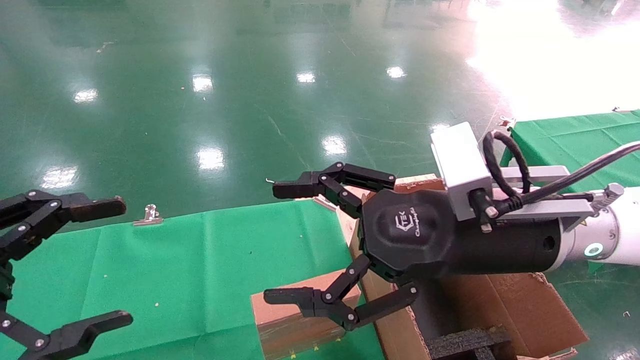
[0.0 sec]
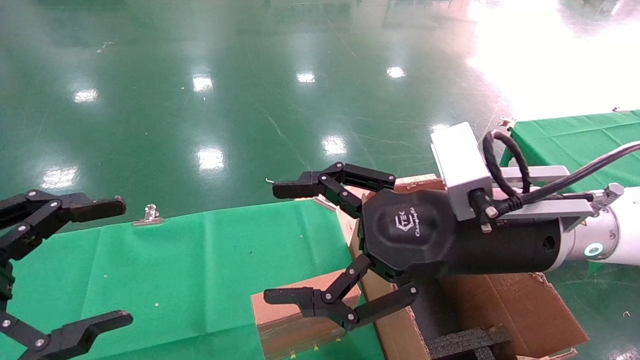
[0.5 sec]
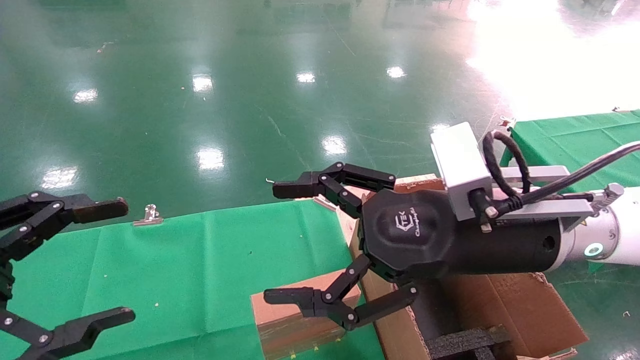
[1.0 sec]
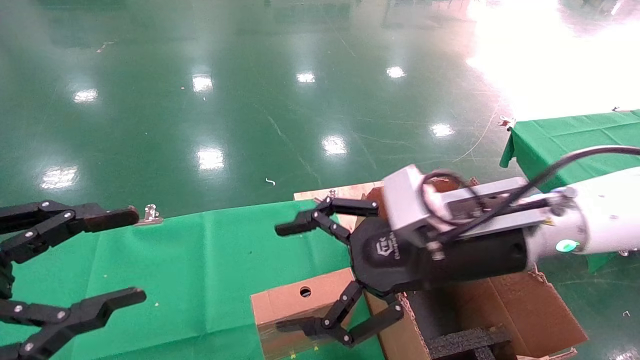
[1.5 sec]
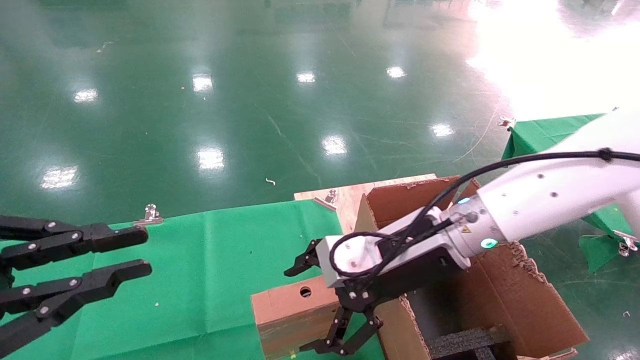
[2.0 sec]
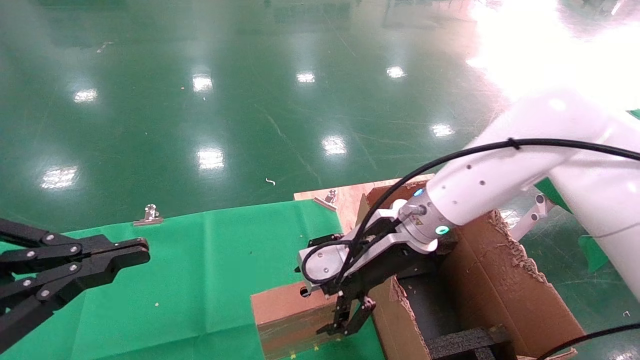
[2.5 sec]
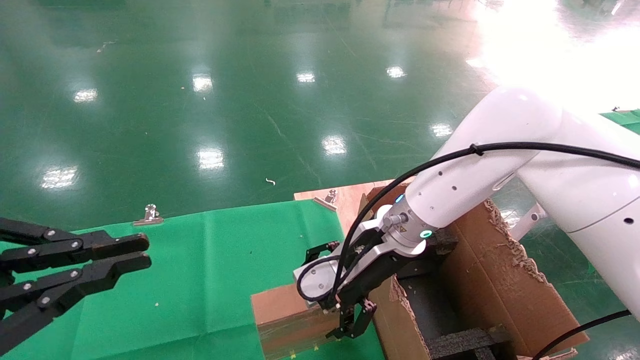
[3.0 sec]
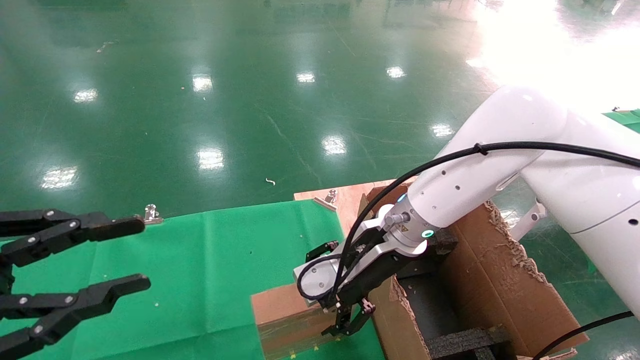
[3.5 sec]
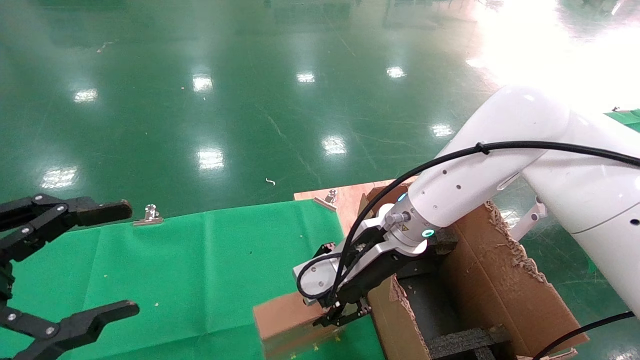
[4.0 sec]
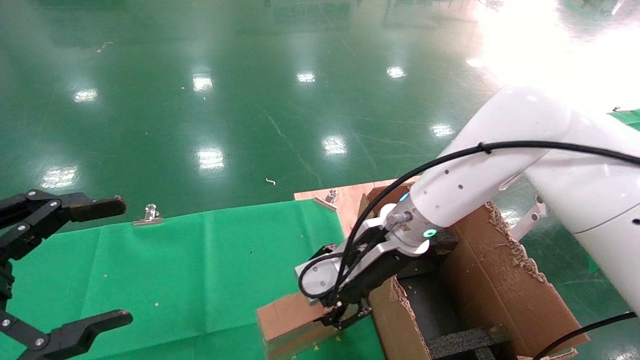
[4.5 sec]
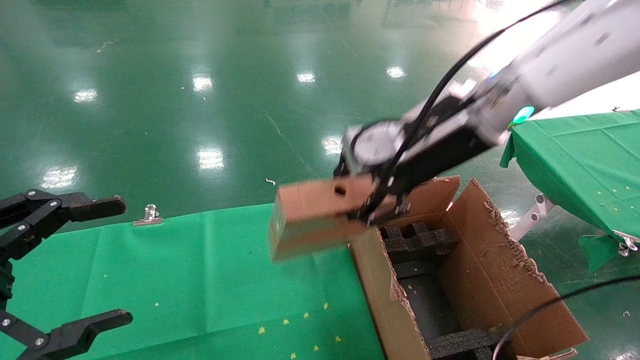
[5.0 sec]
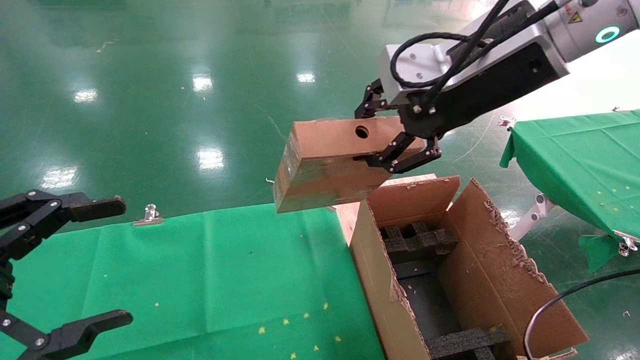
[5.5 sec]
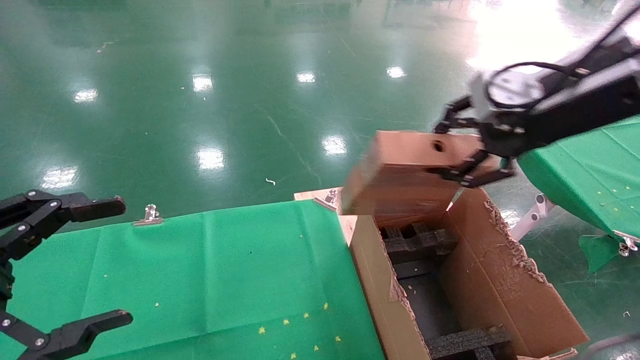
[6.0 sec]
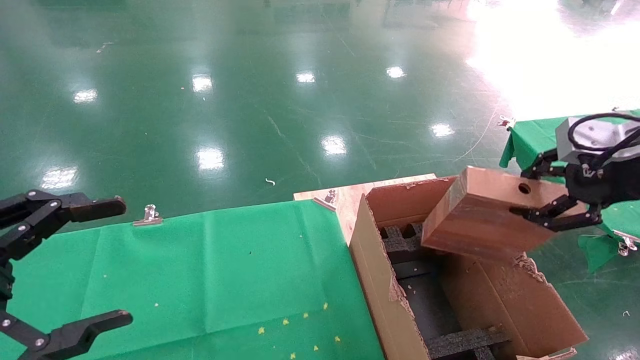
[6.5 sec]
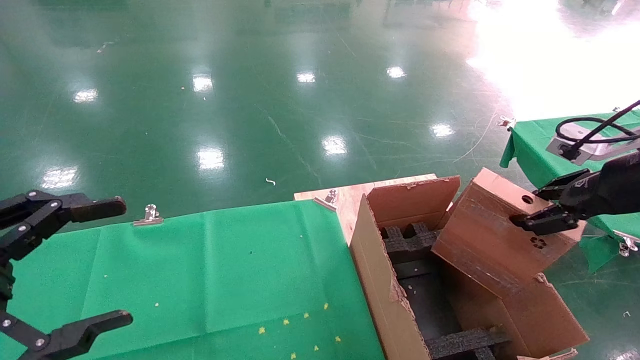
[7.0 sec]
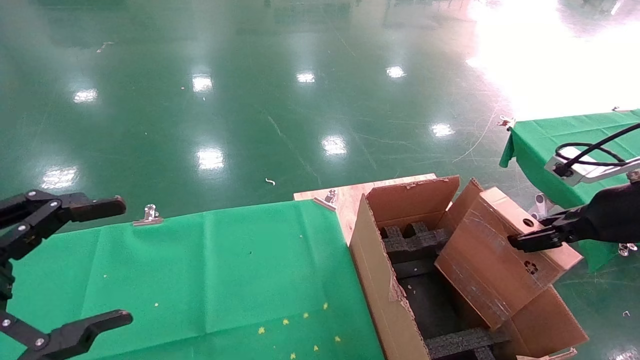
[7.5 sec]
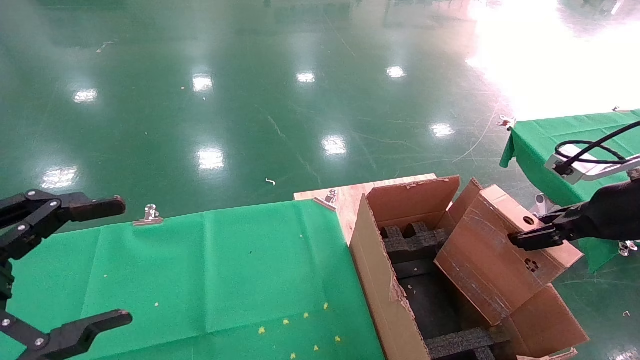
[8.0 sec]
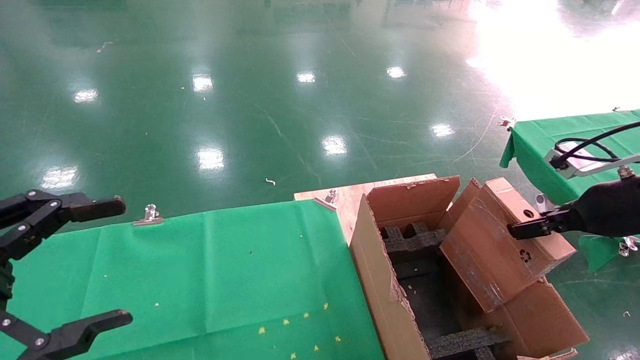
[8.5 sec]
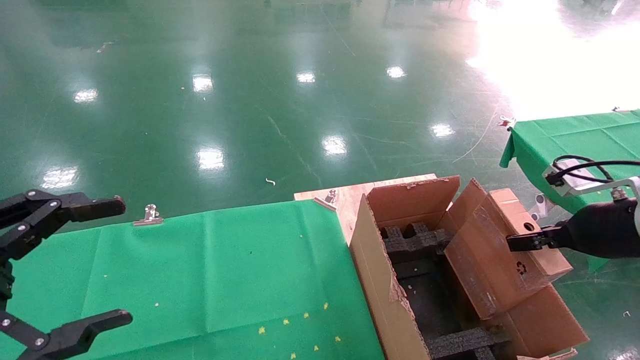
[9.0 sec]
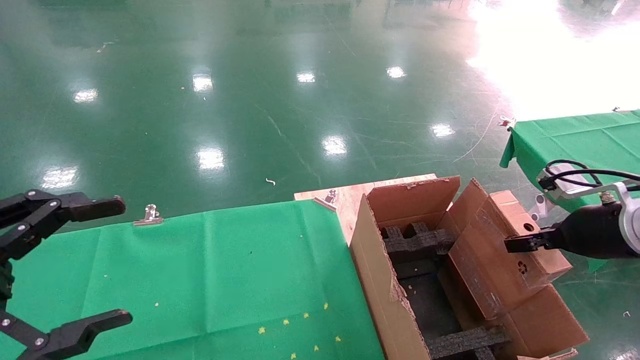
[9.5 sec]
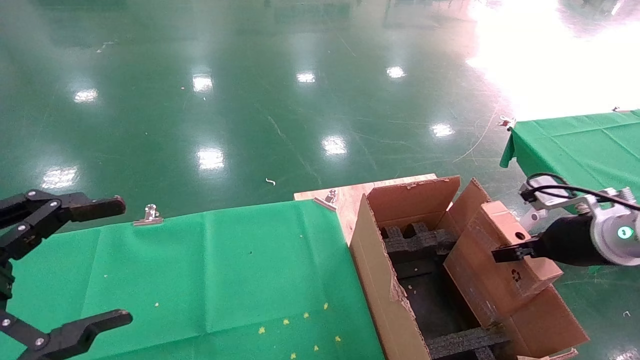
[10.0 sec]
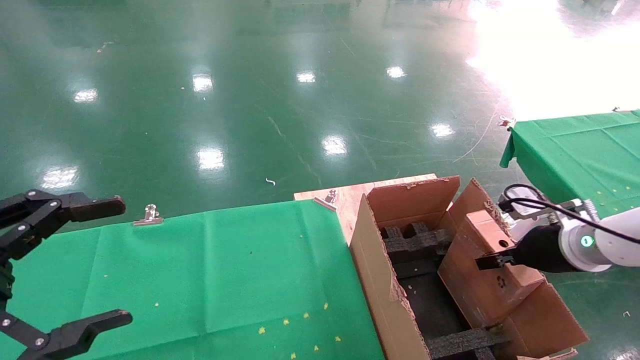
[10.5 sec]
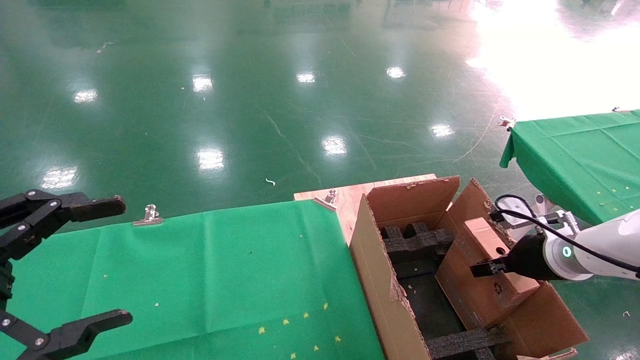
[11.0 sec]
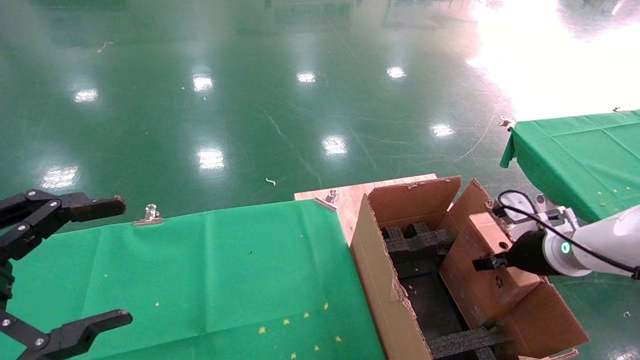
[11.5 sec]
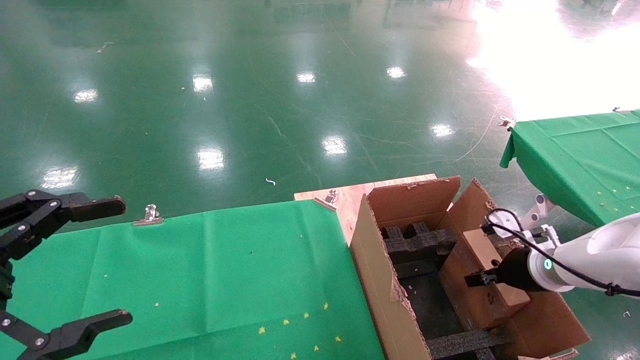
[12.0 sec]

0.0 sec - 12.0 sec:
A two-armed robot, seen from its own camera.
Task of the whole recording: using a robotic arm to pick up a cardboard box and palace it the carton.
Step, 1.5 sec - 4.5 sec: Pick up the mouse and the power cord paper box.
0.0 sec - 2.0 sec: The left gripper closes its fingers; the right gripper travels forward by some 5 cm.
2.0 sec - 4.0 sec: The left gripper opens. Meanwhile the right gripper moves about 5 cm, and closes its fingers.
4.0 sec - 6.0 sec: The right gripper heads to the right and upward, covering roughly 25 cm, and closes.
6.0 sec - 8.0 sec: The right gripper is displaced downward and to the right by approximately 15 cm.
8.0 sec - 10.0 sec: The right gripper moves downward, approximately 5 cm.
10.0 sec - 12.0 sec: The right gripper travels downward by approximately 10 cm.

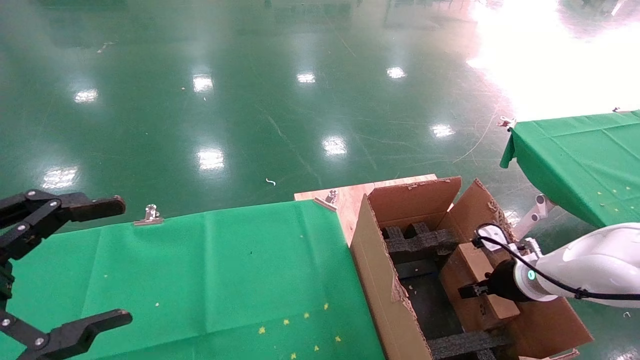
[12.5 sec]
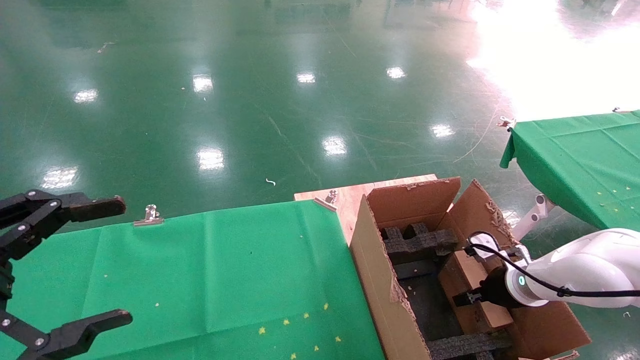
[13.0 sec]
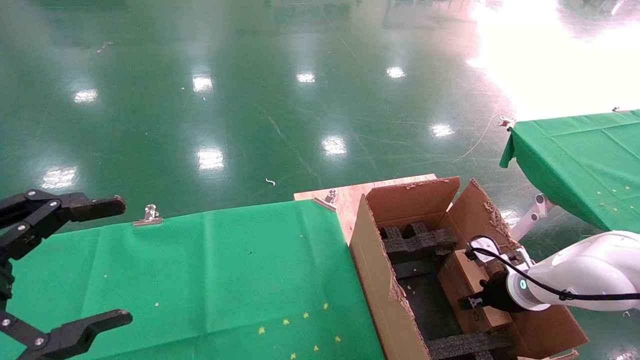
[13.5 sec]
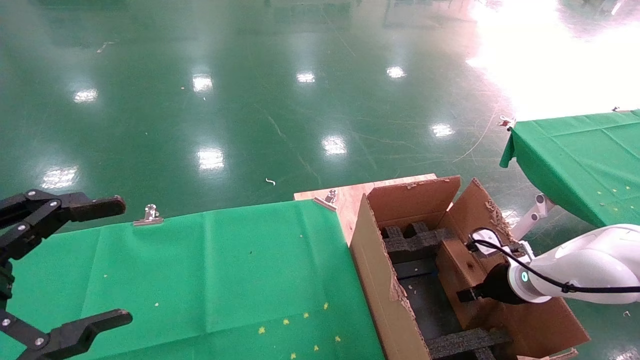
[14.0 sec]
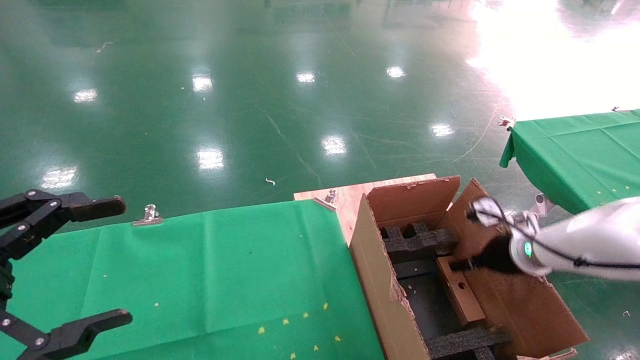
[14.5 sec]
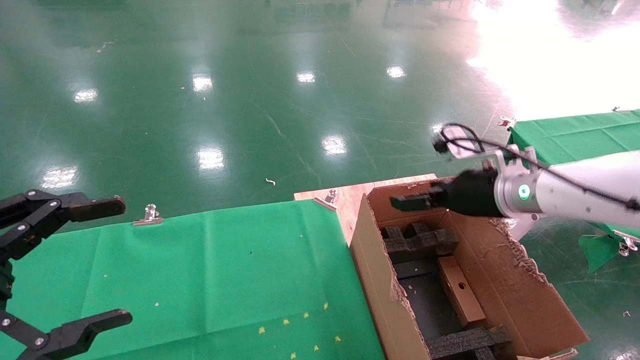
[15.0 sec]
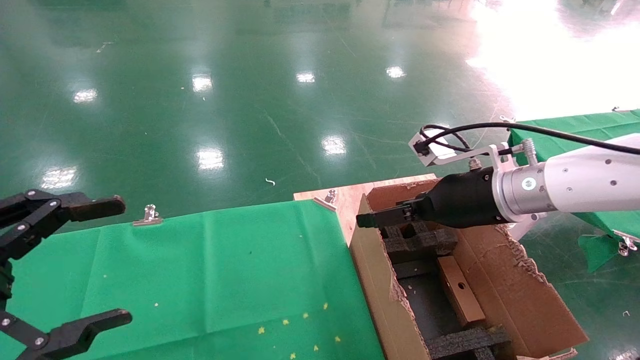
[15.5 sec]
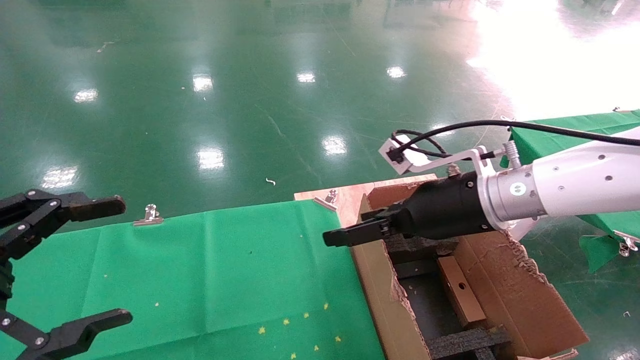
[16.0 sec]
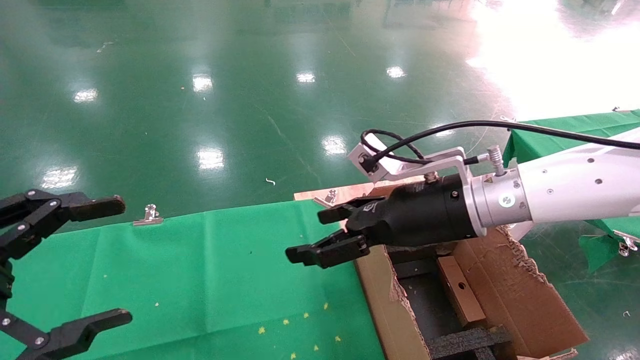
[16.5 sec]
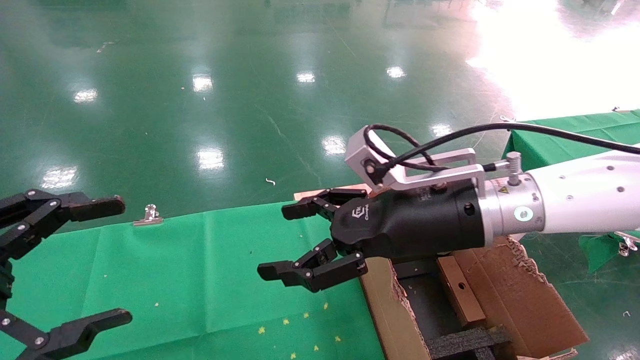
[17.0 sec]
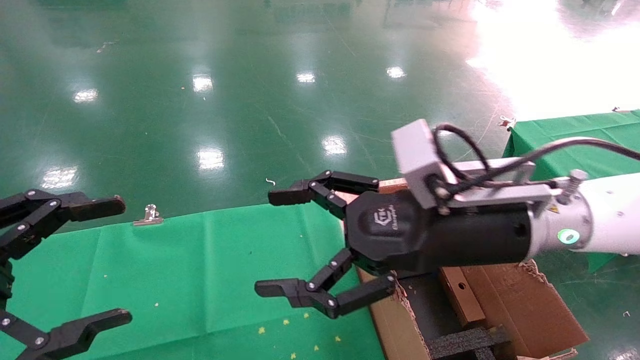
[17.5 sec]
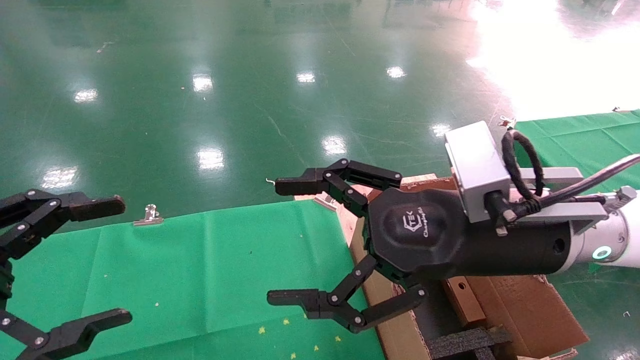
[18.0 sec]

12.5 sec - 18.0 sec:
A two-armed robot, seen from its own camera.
Task of the whole recording: using a robotic arm to pick up a cardboard box and palace it the carton.
12.5 sec - 14.5 sec: The right gripper moves upward, some 5 cm, and opens.
14.5 sec - 16.0 sec: The right gripper is displaced to the left and upward by about 20 cm.
16.0 sec - 18.0 sec: The right gripper goes roughly 10 cm backward.
